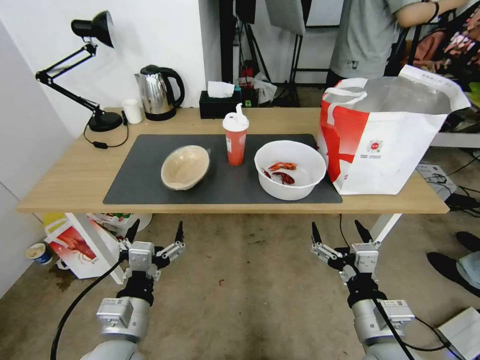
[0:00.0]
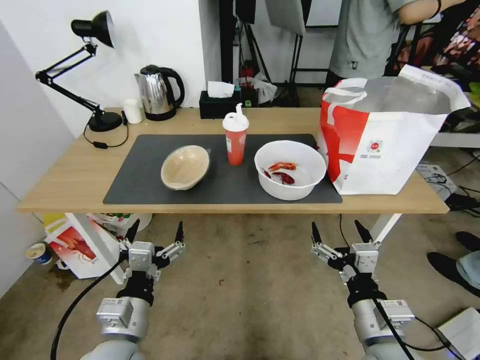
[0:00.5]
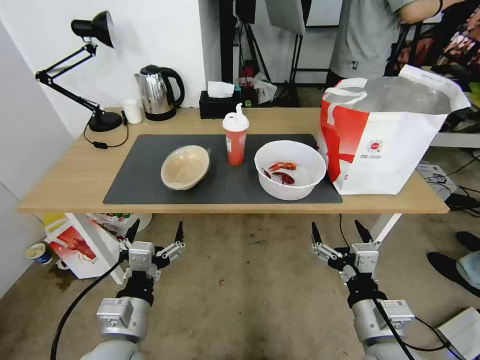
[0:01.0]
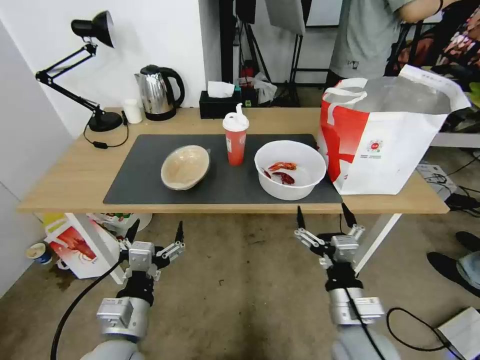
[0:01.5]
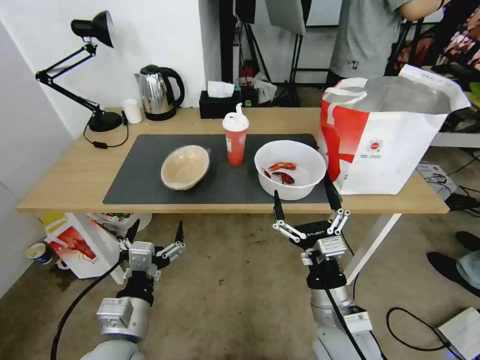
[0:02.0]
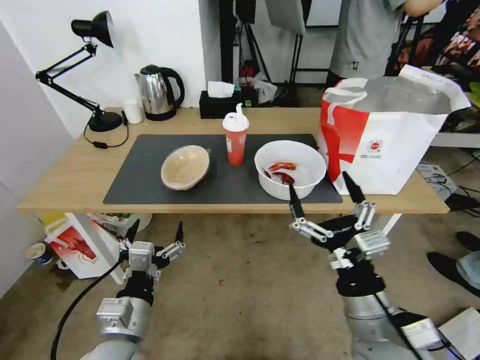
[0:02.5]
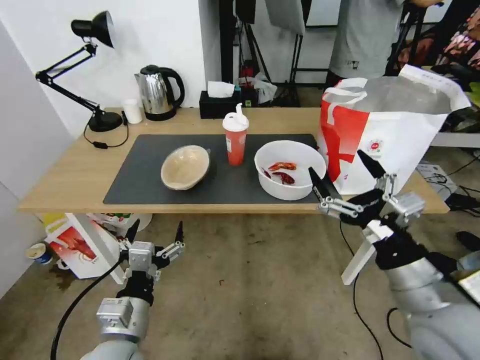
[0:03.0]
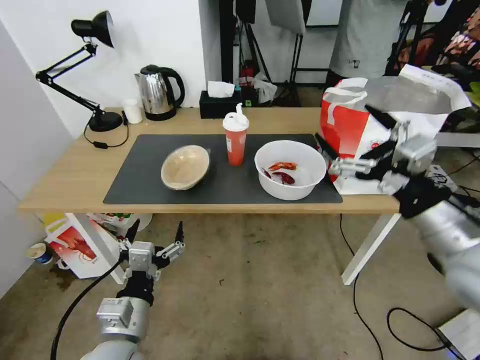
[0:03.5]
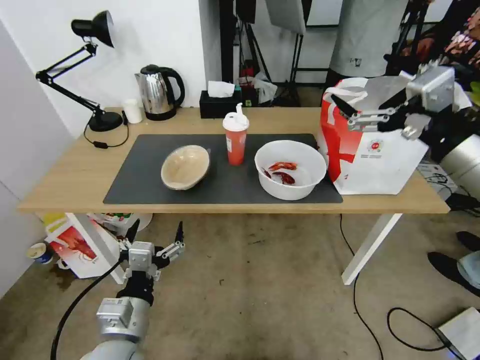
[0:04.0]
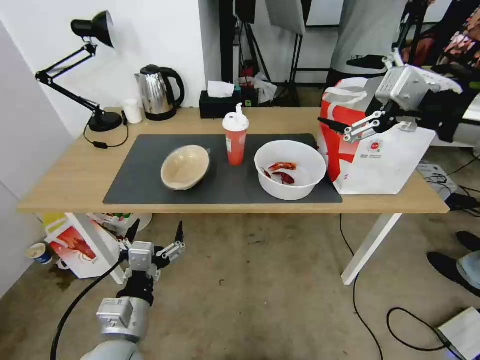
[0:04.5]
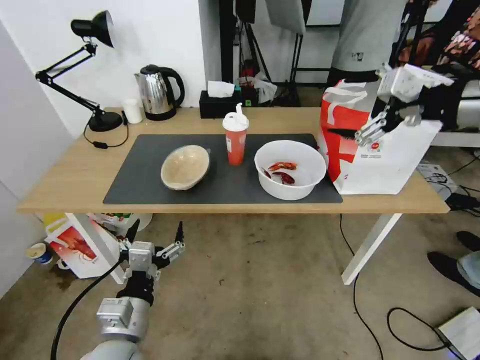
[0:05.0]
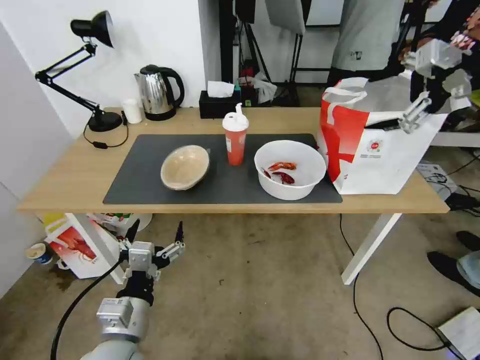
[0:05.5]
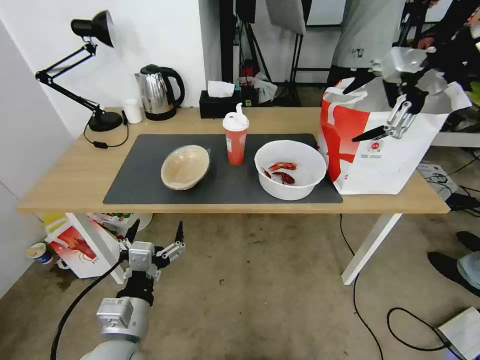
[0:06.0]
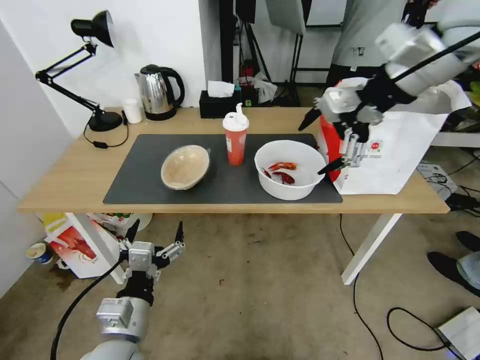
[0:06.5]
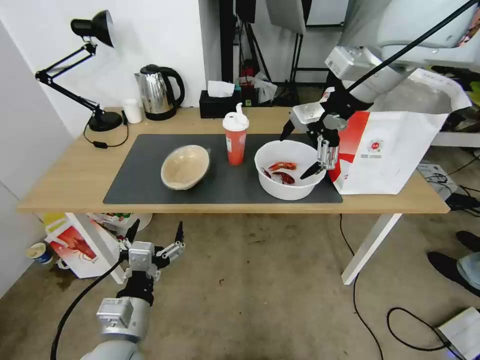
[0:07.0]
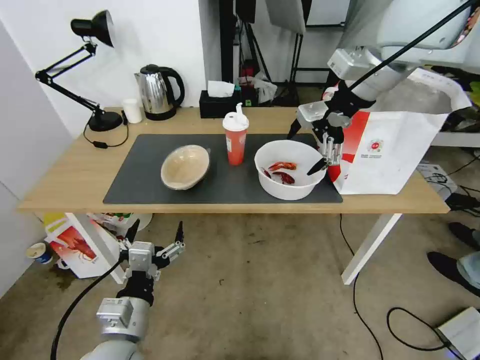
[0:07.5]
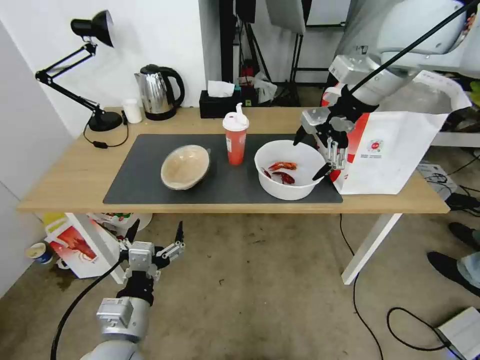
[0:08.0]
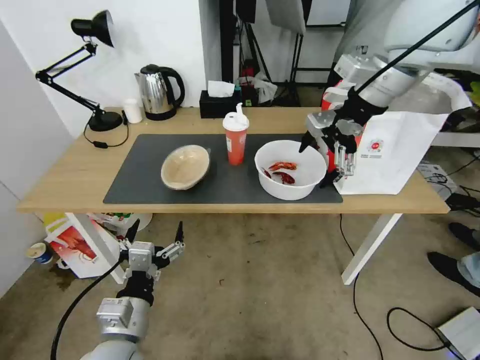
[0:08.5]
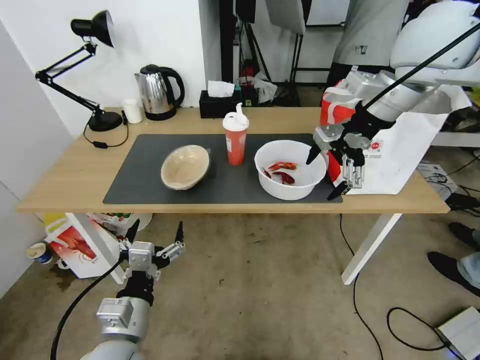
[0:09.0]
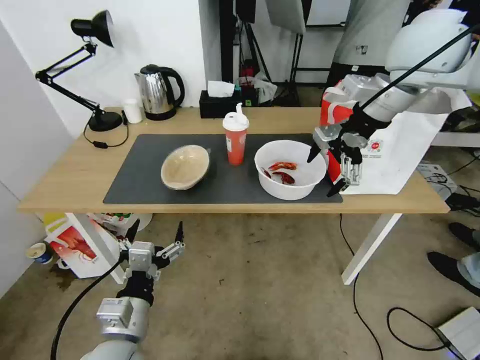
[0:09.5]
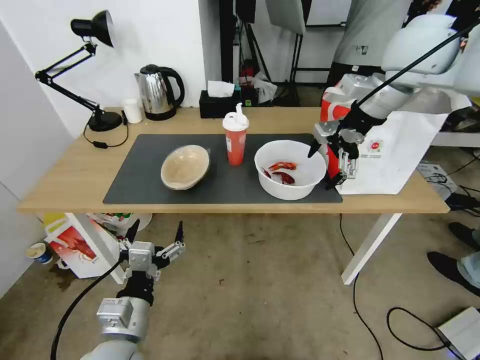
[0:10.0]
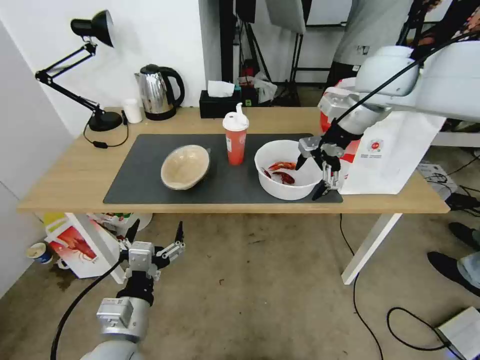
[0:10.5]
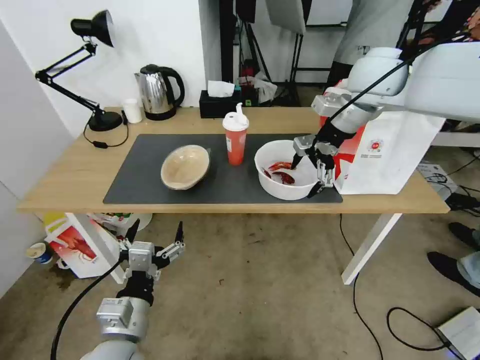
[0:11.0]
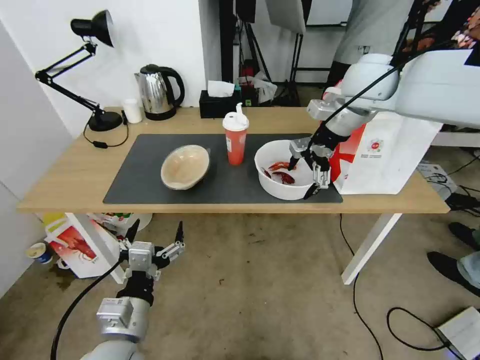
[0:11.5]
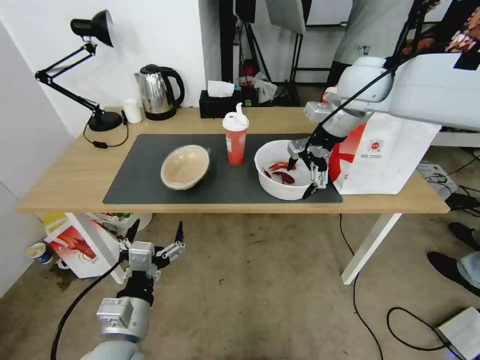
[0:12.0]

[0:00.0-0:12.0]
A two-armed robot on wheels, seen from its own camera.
Task of the whole recording: Pick up the trash from the table and place it into the takeout bag.
0:02.0 to 0:04.0: The right gripper heads upward and to the right, covering about 30 cm.
0:04.0 to 0:06.0: The right gripper shifts roughly 25 cm upward and forward.
0:06.0 to 0:08.0: The right gripper shifts some 15 cm to the left, forward and downward.
0:08.0 to 0:10.0: The right gripper ends up about 5 cm from where it was.
0:10.0 to 0:12.0: The right gripper heads downward, covering roughly 5 cm.

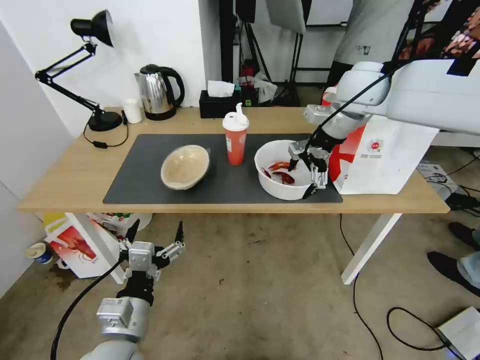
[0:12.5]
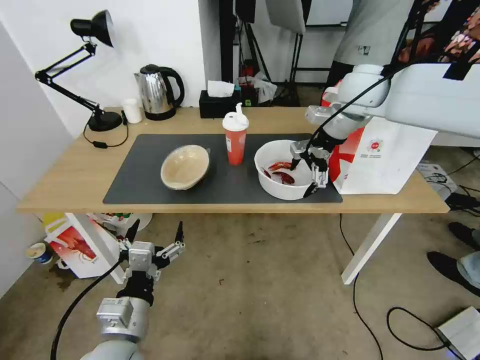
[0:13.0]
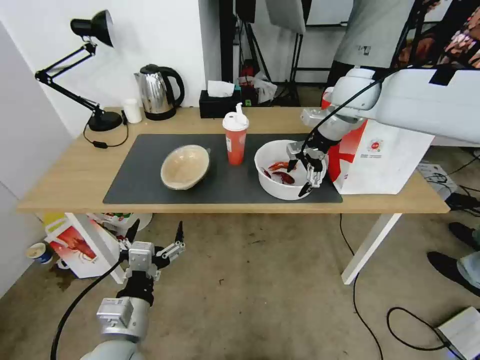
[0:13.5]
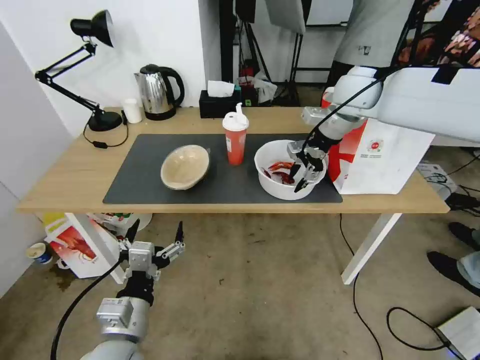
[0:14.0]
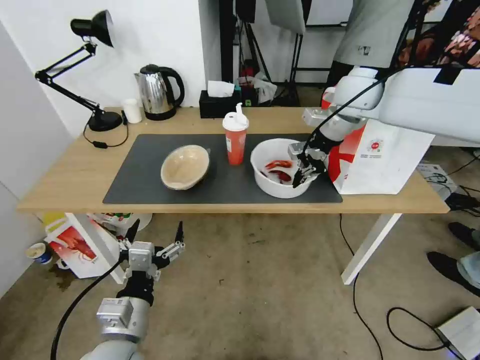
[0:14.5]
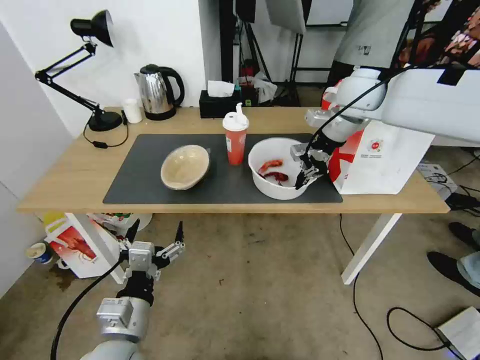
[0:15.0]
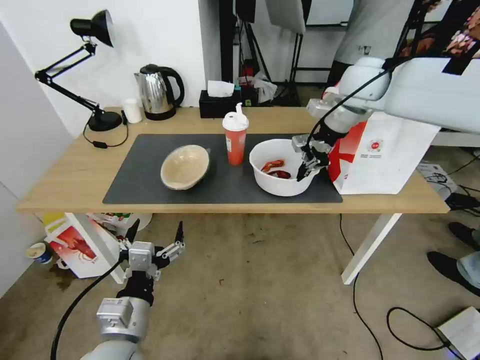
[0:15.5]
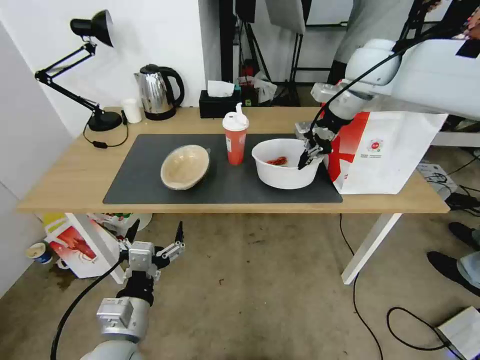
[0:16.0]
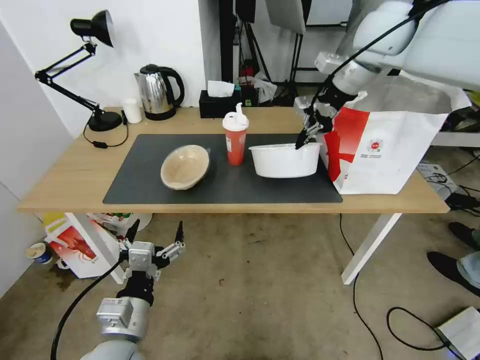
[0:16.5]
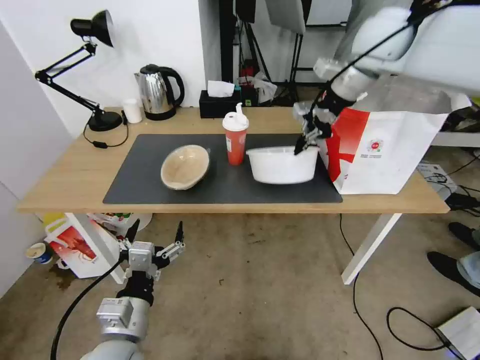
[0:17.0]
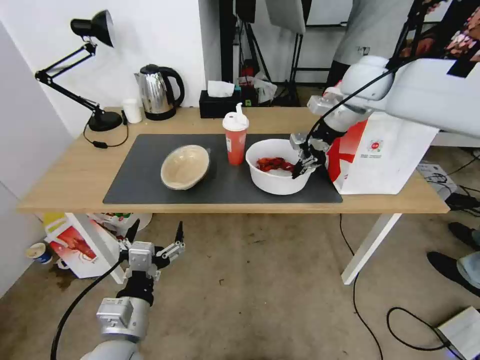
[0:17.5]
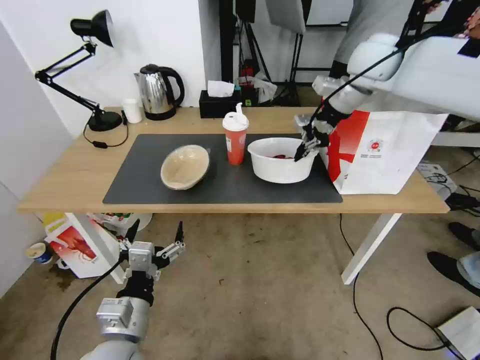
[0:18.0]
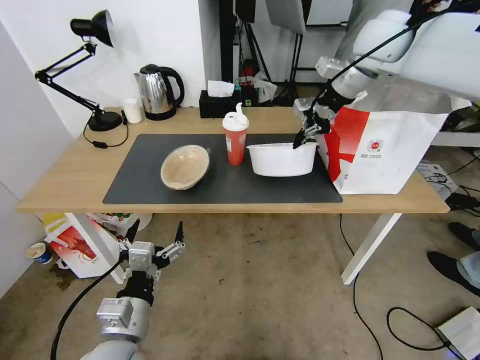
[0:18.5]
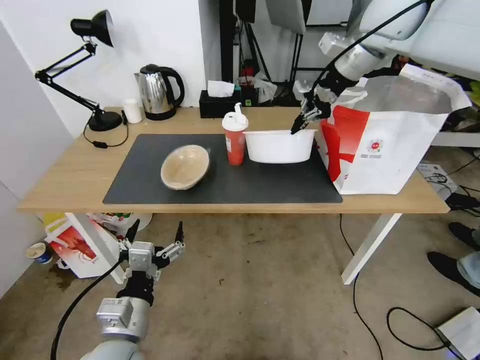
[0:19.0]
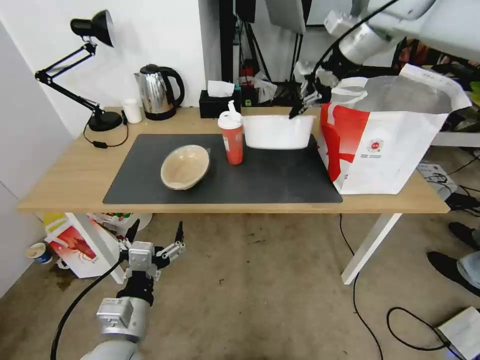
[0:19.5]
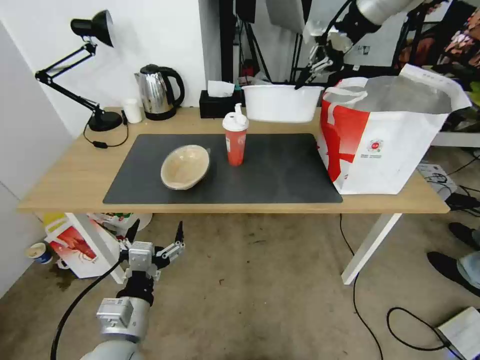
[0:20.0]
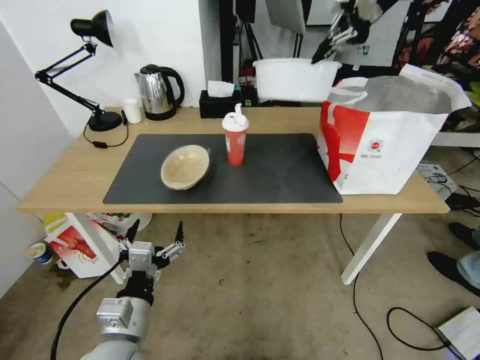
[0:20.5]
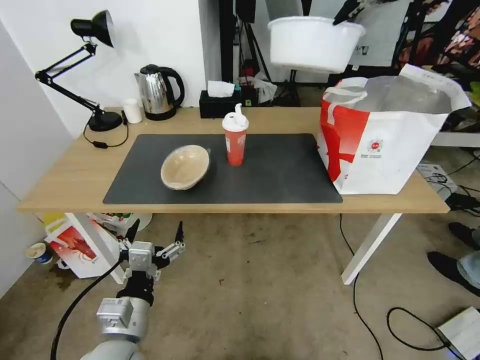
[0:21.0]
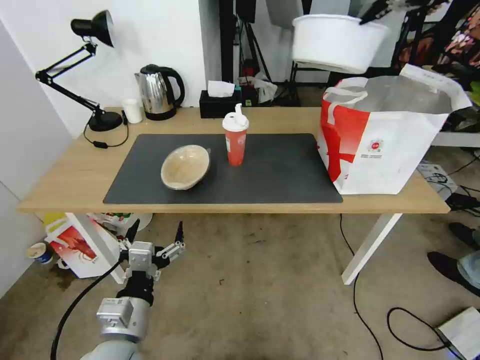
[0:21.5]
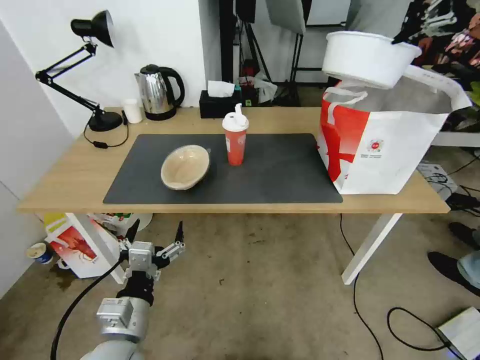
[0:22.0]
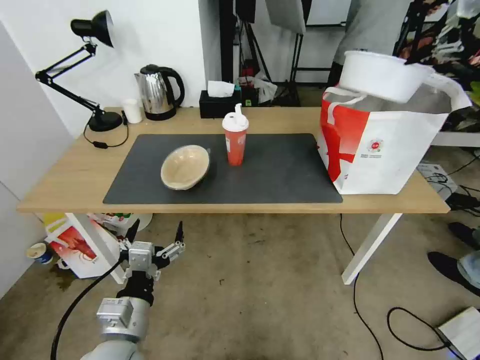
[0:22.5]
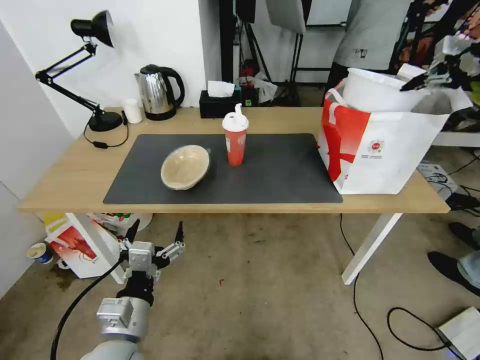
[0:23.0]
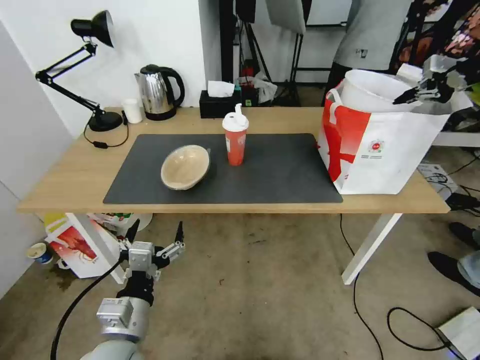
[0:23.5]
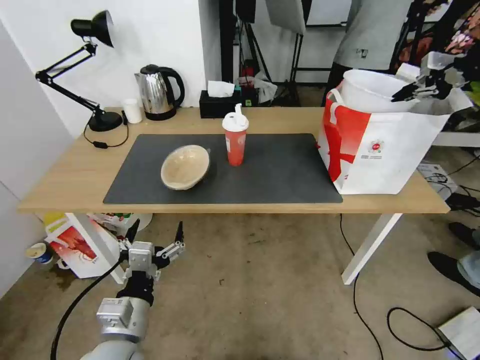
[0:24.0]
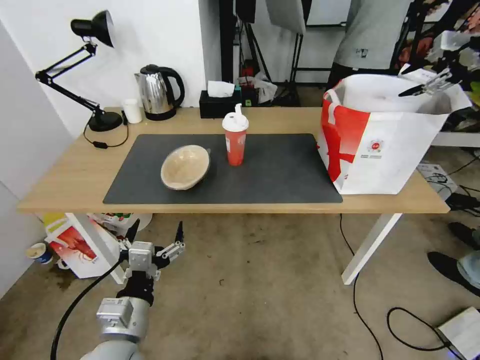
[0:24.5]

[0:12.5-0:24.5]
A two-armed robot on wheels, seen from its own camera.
Task of the whole recording: Pick up the trash from the table and place it into the takeout bag.
0:12.5 to 0:14.5: The right gripper closes.
0:14.5 to 0:16.5: The right gripper heads upward, covering some 10 cm.
0:18.5 to 0:20.5: The right gripper shifts approximately 20 cm upward.
0:20.5 to 0:22.5: The right gripper goes about 20 cm to the right.
0:22.5 to 0:24.5: The right gripper opens its fingers.

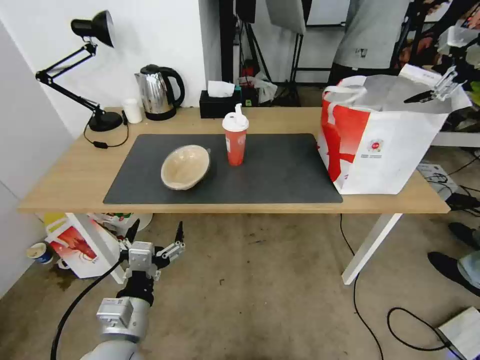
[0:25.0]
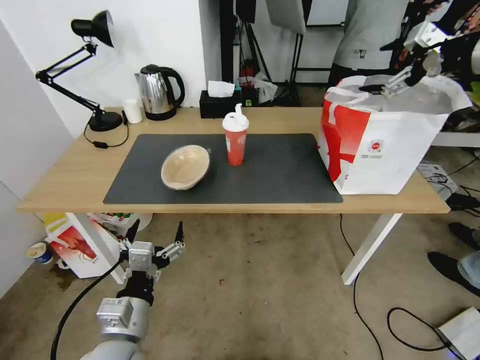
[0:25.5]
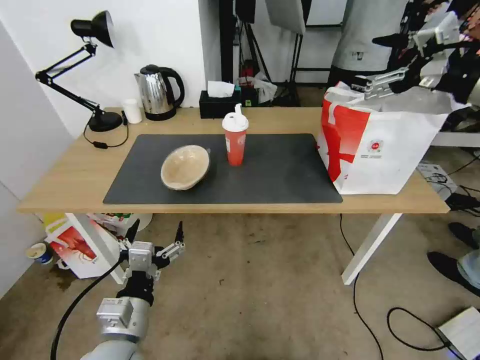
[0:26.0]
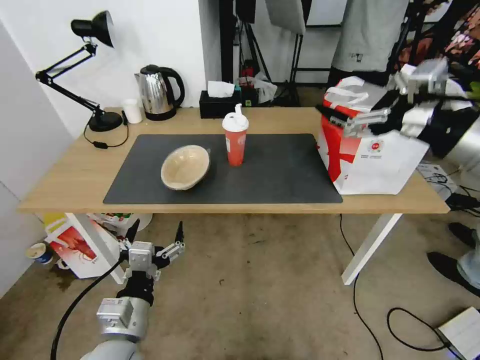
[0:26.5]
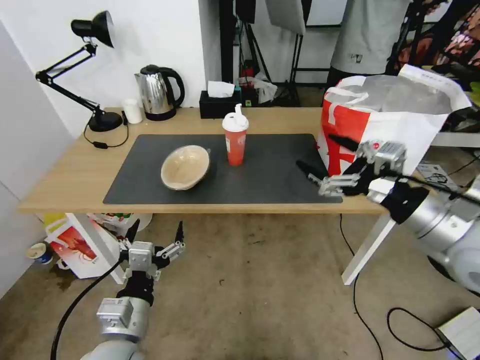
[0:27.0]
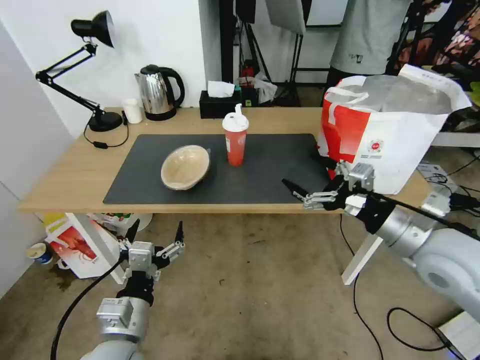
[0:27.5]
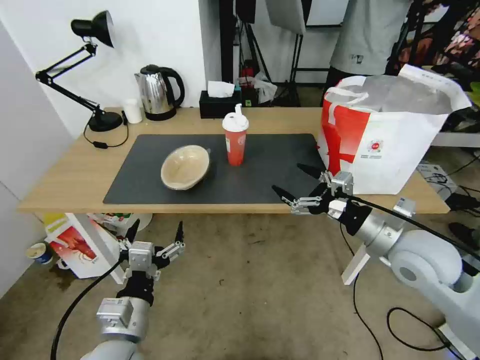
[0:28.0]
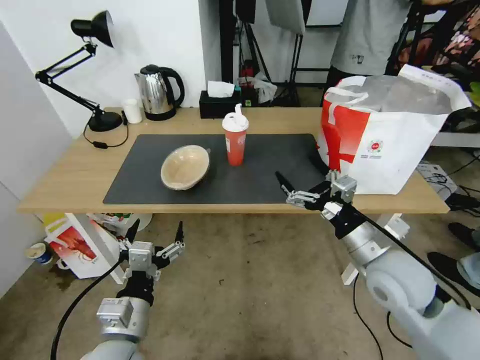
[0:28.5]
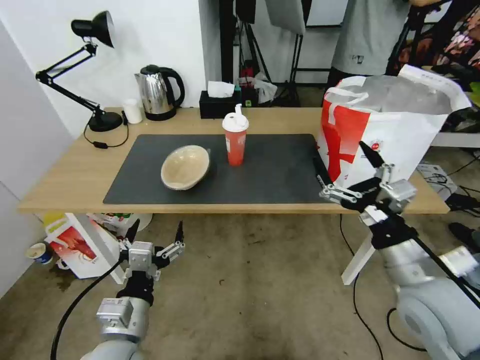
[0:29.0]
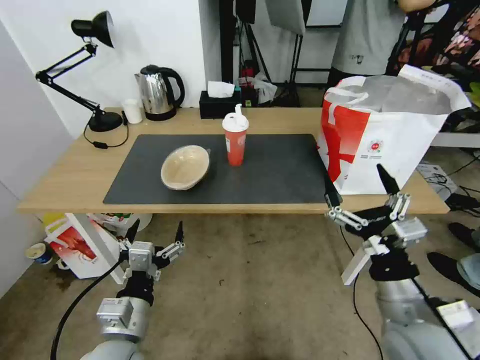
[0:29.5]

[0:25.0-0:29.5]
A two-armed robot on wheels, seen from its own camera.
Task of the whole recording: Pick up the trash from the table and place it into the takeout bag.
0:25.0 to 0:27.0: The right gripper moves downward, backward and to the left, approximately 40 cm.
0:27.0 to 0:29.5: The right gripper travels downward, backward and to the left by approximately 15 cm.
